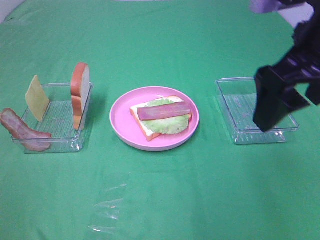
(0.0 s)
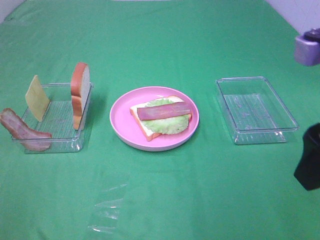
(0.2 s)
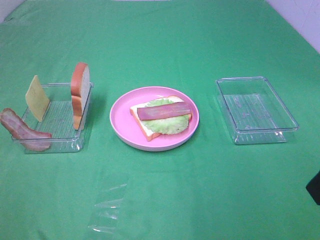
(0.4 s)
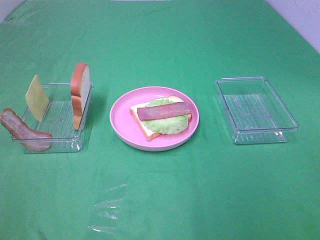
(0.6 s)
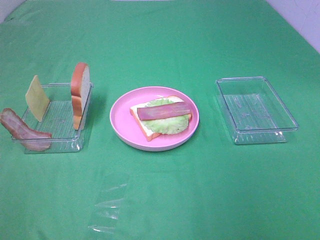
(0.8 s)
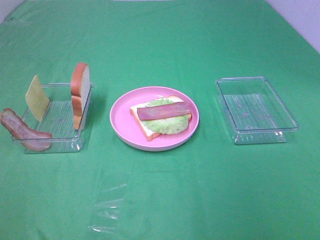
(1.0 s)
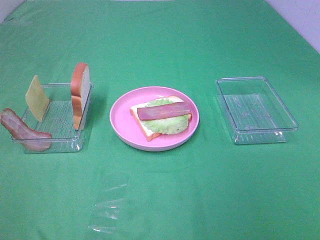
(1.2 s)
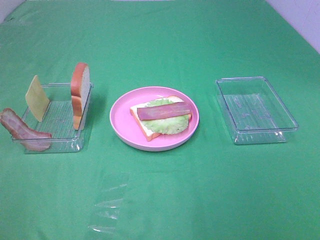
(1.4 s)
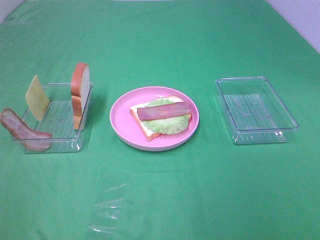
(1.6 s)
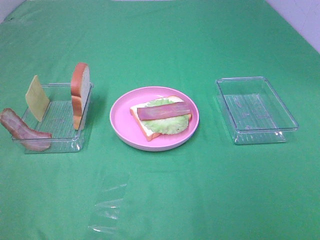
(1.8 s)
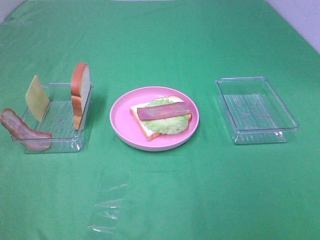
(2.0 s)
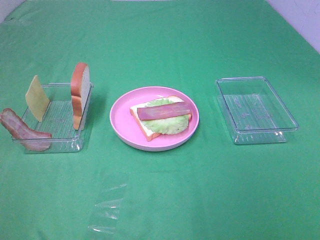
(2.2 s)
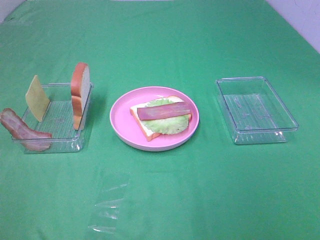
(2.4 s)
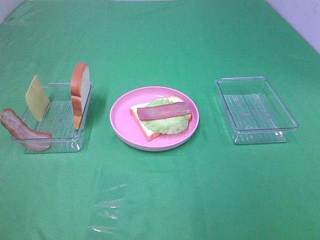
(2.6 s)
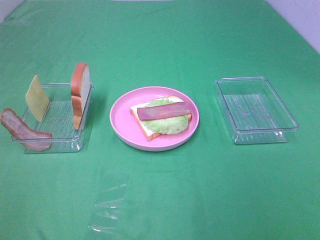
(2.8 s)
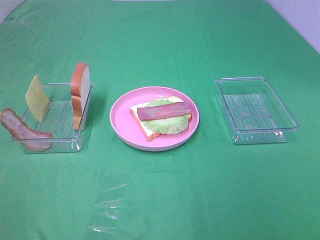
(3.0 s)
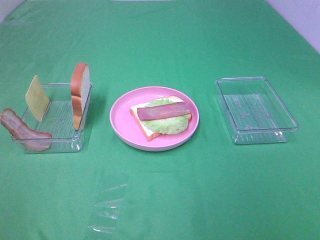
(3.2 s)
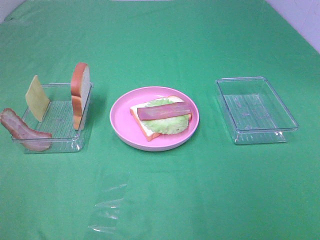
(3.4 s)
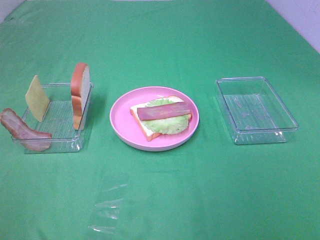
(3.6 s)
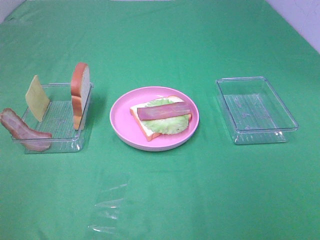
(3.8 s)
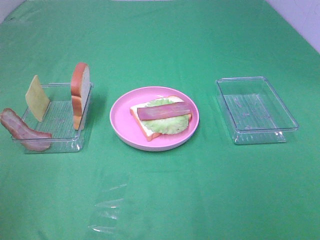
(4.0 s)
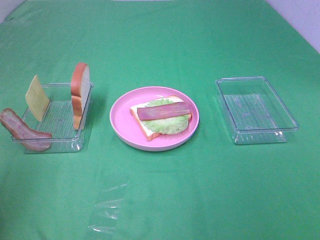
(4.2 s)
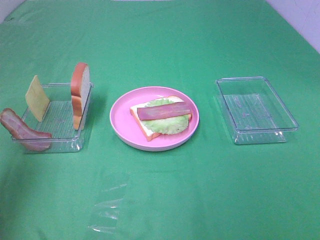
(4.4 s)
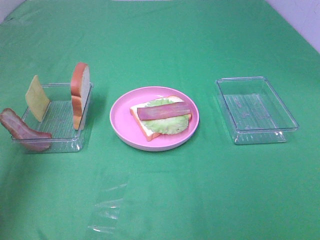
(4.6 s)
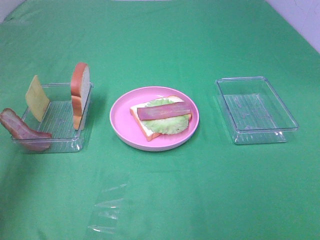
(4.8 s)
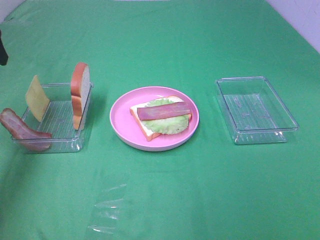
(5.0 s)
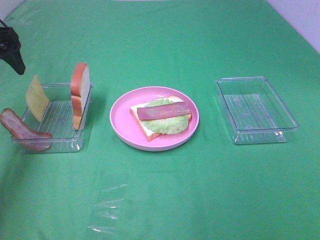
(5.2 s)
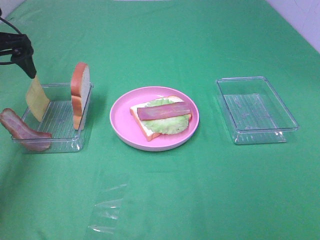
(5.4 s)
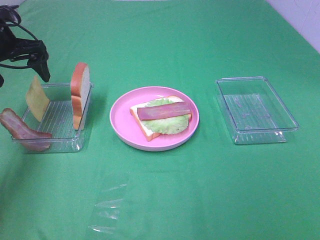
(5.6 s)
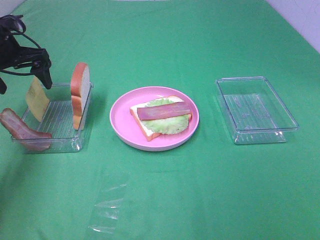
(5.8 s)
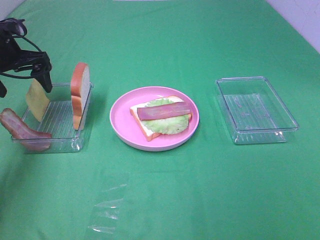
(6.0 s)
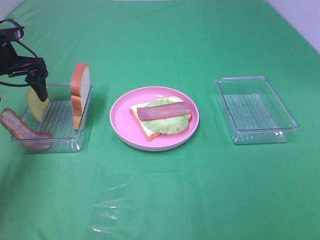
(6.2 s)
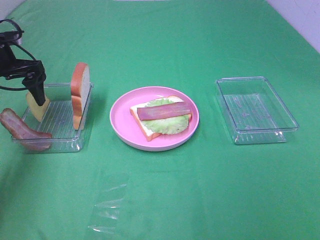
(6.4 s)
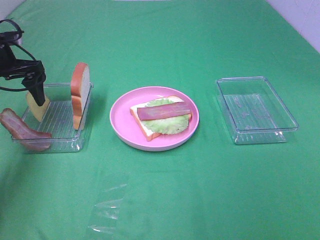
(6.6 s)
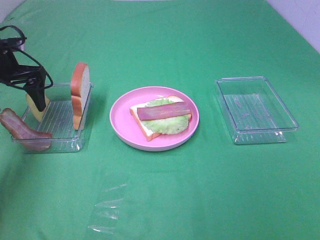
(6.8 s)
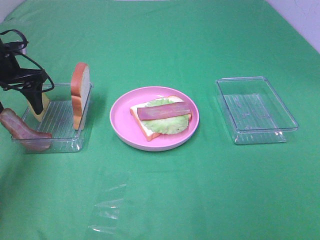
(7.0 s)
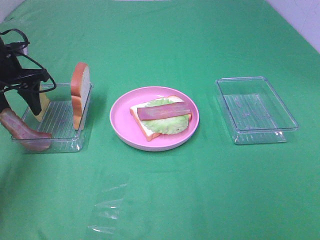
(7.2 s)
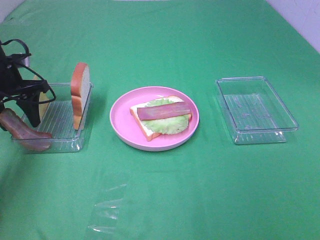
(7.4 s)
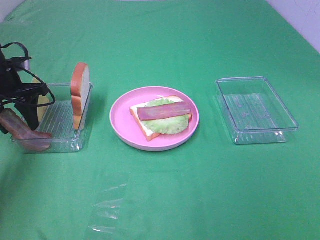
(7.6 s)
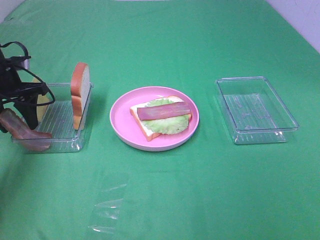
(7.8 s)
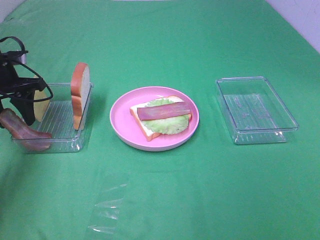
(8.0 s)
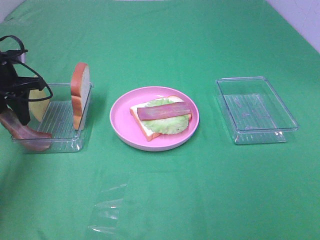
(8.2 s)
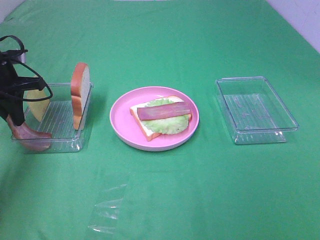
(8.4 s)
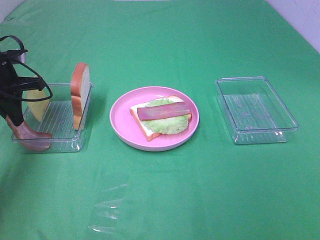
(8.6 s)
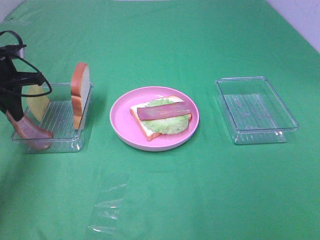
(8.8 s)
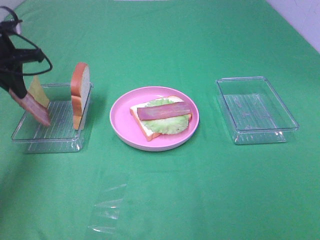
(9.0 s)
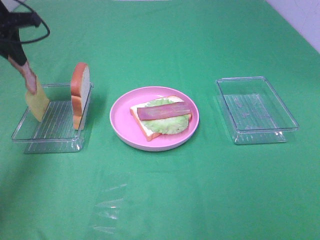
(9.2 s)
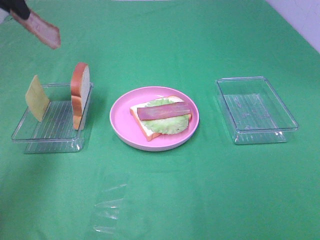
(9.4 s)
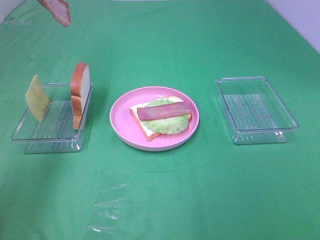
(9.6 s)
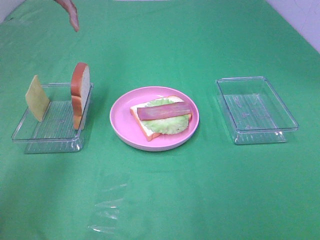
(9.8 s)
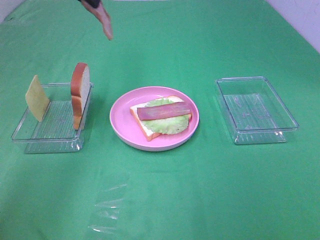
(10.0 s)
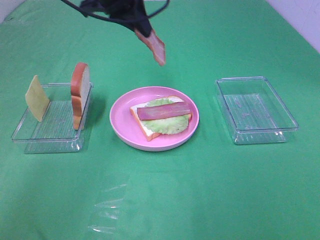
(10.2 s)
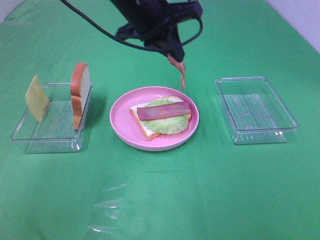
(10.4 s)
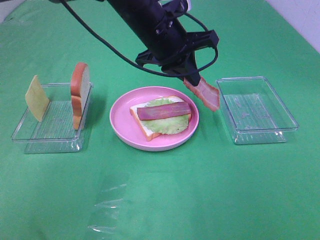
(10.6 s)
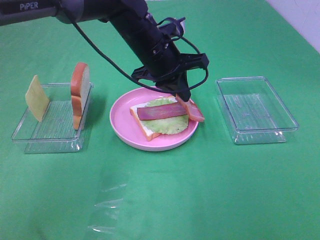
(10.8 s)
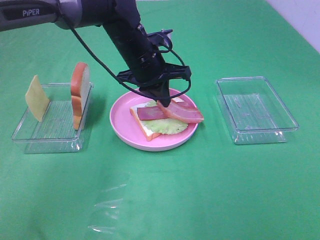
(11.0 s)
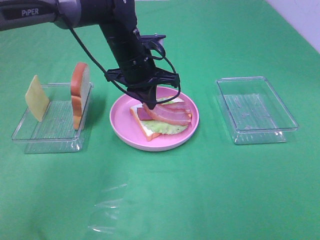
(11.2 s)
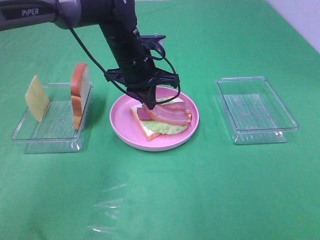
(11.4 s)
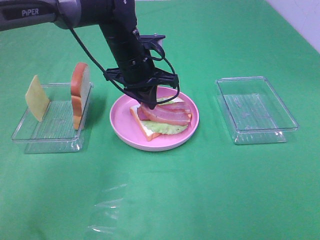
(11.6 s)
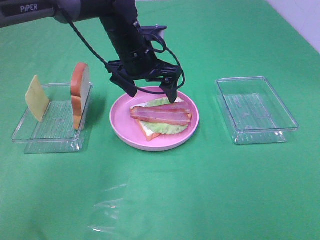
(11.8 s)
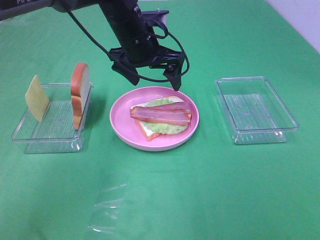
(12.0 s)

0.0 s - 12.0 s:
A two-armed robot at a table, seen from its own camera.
Task of the whole recording: Make sandwiches.
Step, 0.0 s - 8.4 s: Left hand:grab the bacon.
Step, 8.6 s - 11.8 s: Left hand:place bacon on bacon.
0.0 s - 1.6 s: The right gripper travels backward and to the right by approximately 25 cm.
1.6 s - 3.0 s: Neither gripper changes place.
3.0 s - 4.4 s: The left gripper moves forward, roughly 20 cm.
4.4 s - 6.0 s: The left gripper goes about 30 cm forward and downward.
6.0 s - 7.6 s: The left gripper ends up about 5 cm from where it was, and closes up.
7.6 s - 9.0 s: The left gripper moves upward, roughly 5 cm, and closes up.
9.0 s - 10.4 s: The left gripper goes approximately 25 cm to the right.
10.4 s - 12.0 s: The left gripper goes some 5 cm downward, and opens its fingers.

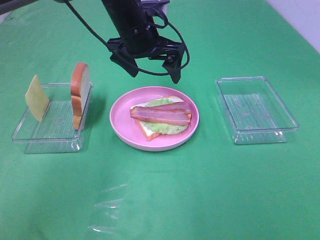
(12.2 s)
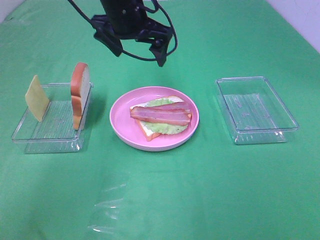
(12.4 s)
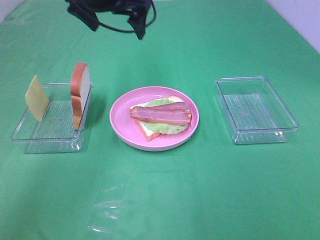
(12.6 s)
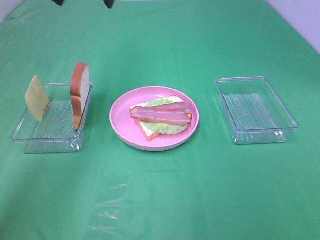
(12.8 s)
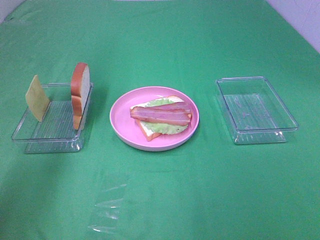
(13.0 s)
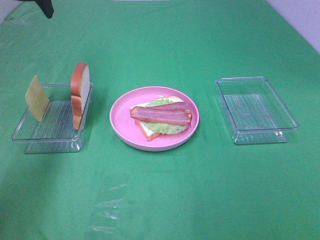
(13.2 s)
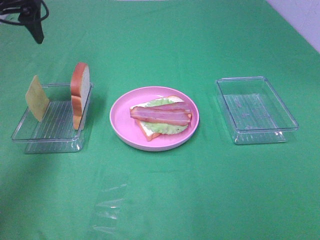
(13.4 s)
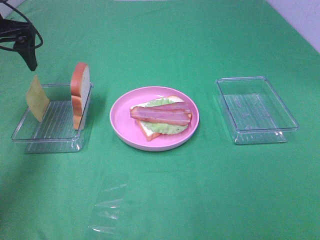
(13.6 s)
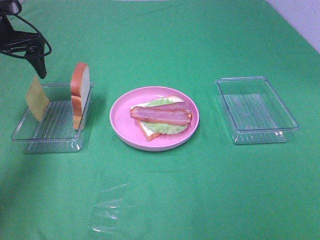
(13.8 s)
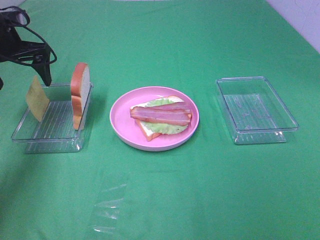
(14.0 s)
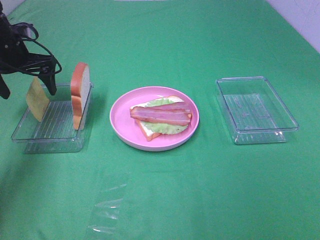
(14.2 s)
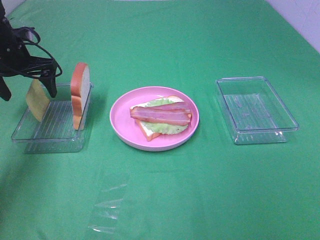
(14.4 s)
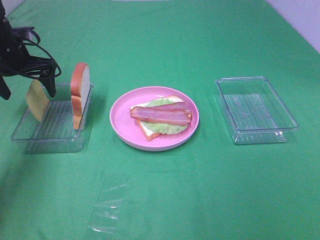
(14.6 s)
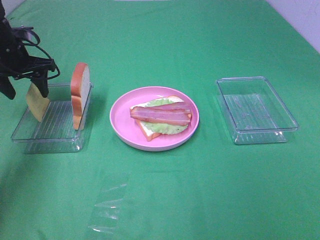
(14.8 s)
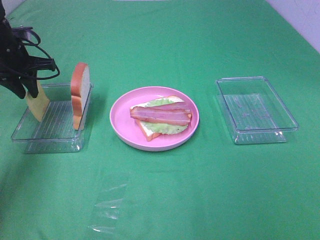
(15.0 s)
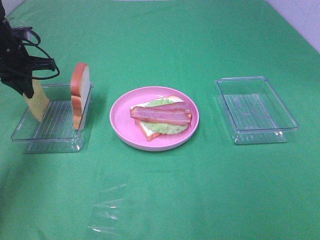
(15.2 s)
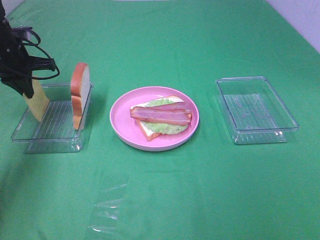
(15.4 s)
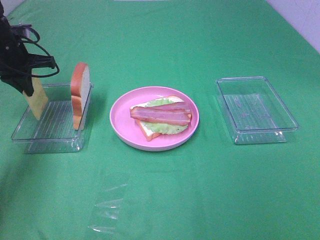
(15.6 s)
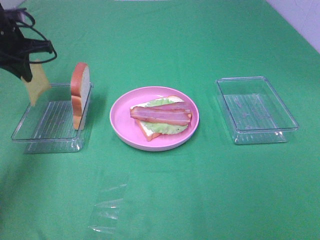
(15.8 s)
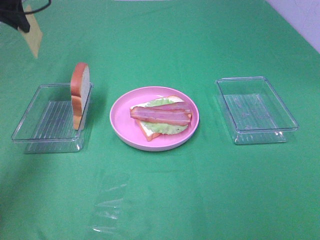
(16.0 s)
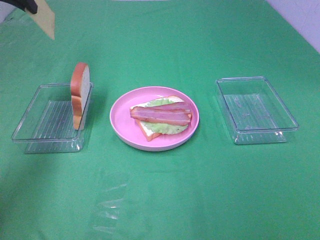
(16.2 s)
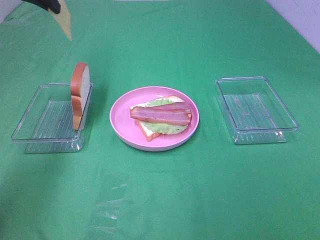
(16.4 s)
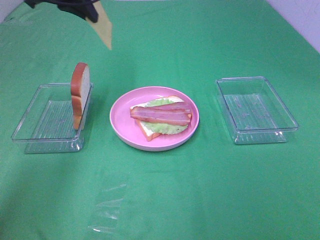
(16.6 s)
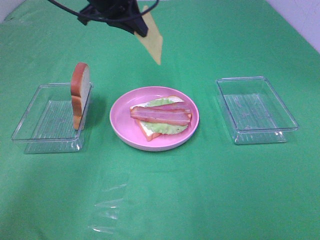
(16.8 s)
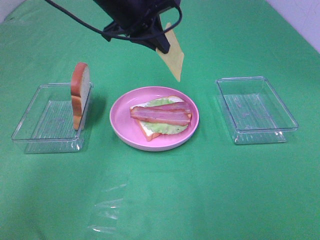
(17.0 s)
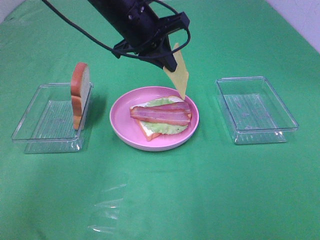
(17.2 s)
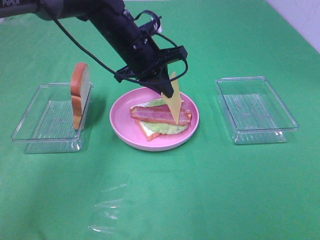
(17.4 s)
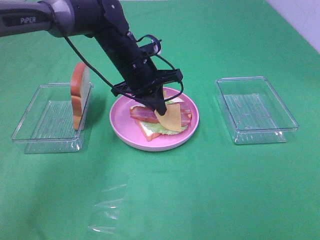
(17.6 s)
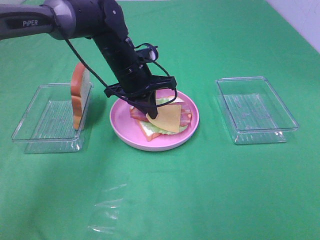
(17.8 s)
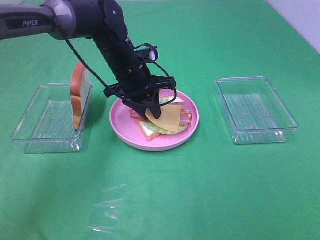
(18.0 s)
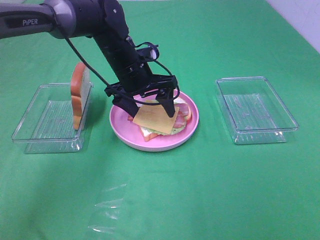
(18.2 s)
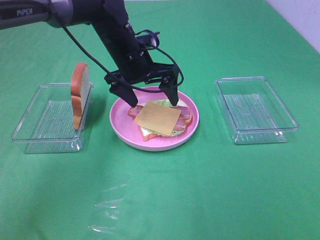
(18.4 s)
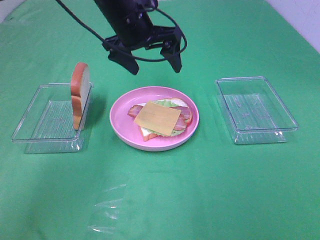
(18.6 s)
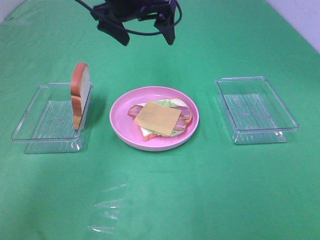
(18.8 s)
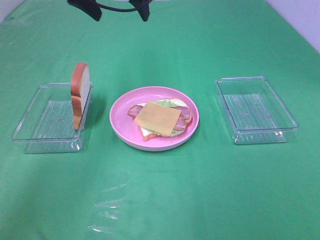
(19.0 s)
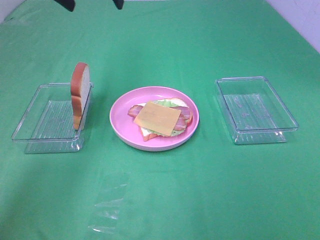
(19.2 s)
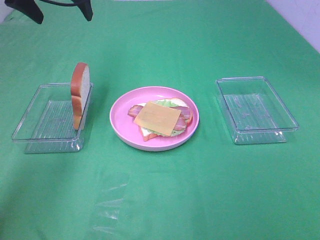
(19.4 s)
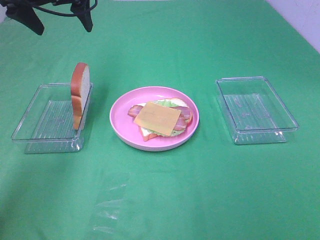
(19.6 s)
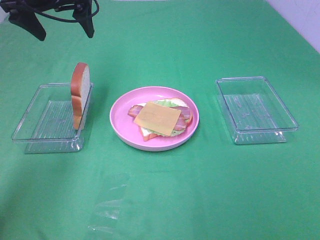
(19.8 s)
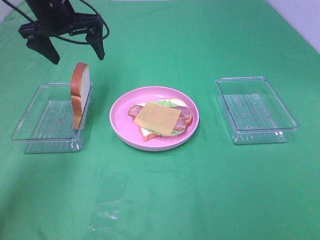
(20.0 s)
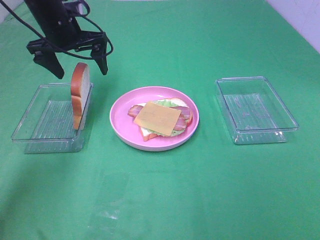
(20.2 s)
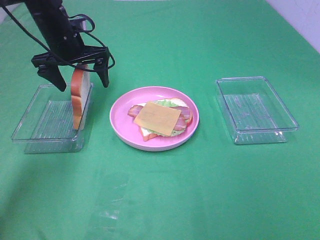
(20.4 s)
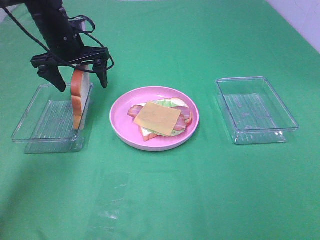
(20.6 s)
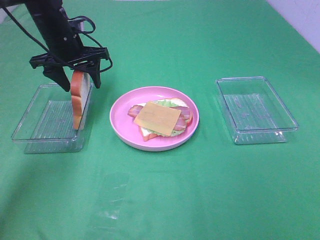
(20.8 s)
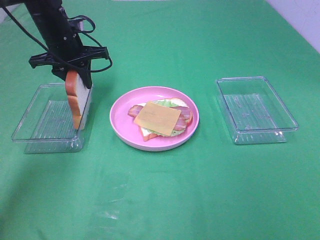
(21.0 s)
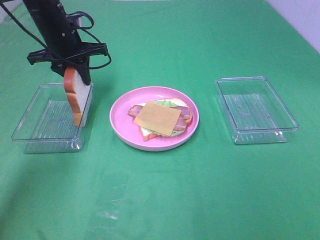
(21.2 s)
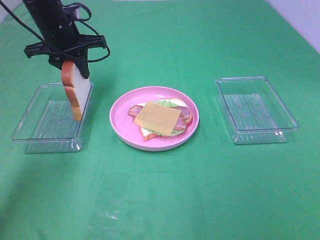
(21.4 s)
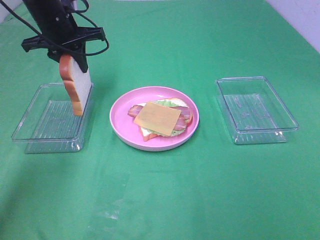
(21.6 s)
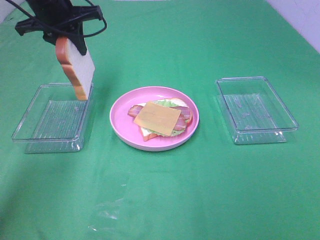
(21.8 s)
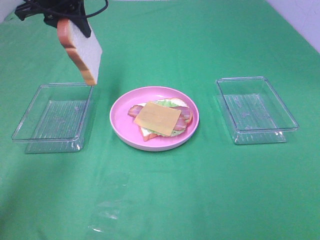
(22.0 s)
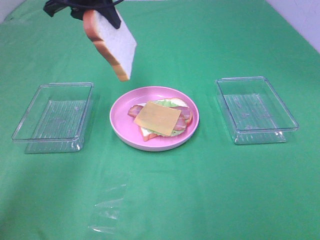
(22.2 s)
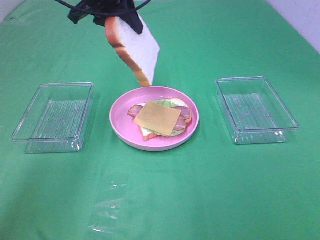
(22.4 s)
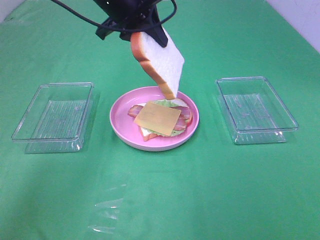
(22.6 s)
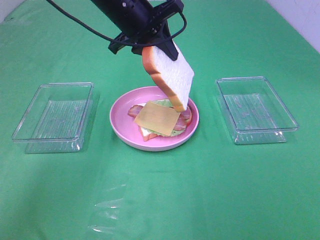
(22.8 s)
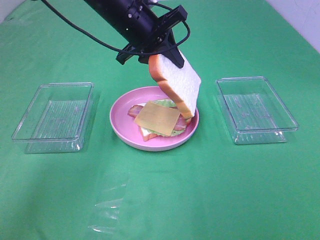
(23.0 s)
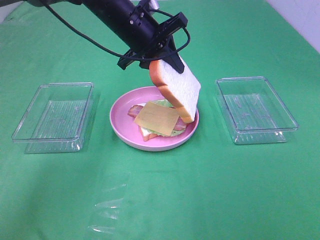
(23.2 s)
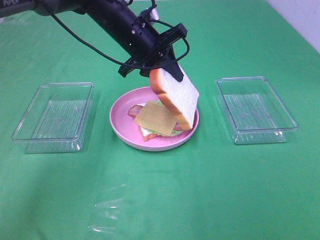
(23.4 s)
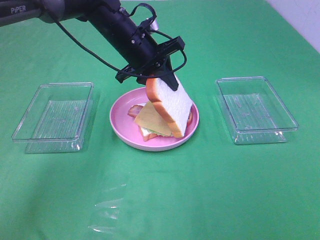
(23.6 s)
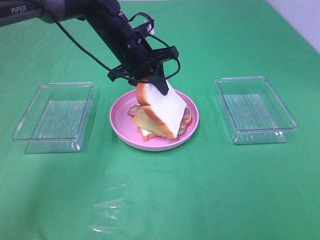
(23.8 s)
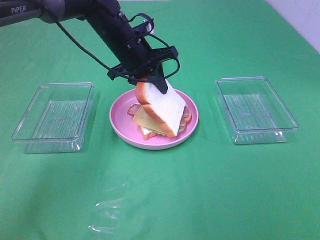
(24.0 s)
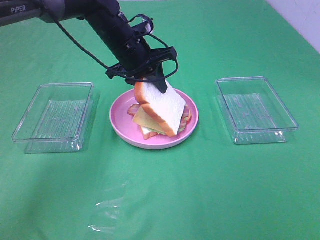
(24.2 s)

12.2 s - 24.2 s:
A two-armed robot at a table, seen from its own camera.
Task of the whole recording: Make sandwiches.
Step, 12.2 s - 15.2 s: Left hand:grab the cheese slice.
Step, 15.4 s - 18.4 s: Left hand:place the cheese slice on top of the bacon.
Step, 18.6 s - 21.0 s: Left hand:grab the bread slice.
12.2 s - 13.8 s: The left gripper travels to the left by approximately 25 cm.
13.8 s - 15.2 s: The left gripper heads downward, covering approximately 5 cm, and closes its fingers.
15.2 s - 16.6 s: The left gripper is displaced upward and to the right by roughly 20 cm.
16.6 s - 18.2 s: The left gripper heads downward and to the right, covering roughly 20 cm, and opens up.
18.2 s - 19.8 s: The left gripper shifts some 20 cm upward and to the left.
19.8 s - 21.2 s: The left gripper travels downward by roughly 10 cm, and closes.
21.2 s - 22.6 s: The left gripper travels to the right and upward by about 15 cm.
22.6 s - 24.2 s: The left gripper travels downward by about 10 cm.
